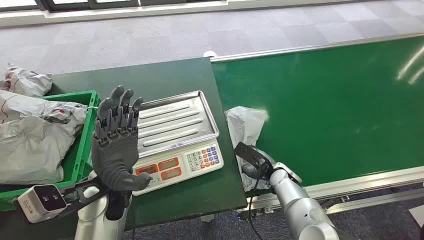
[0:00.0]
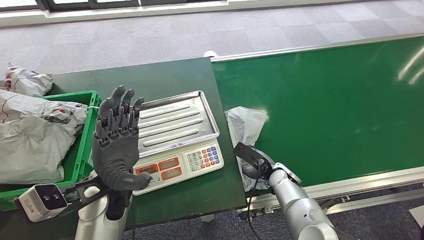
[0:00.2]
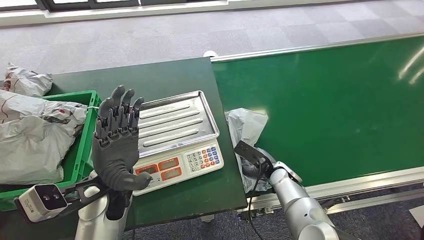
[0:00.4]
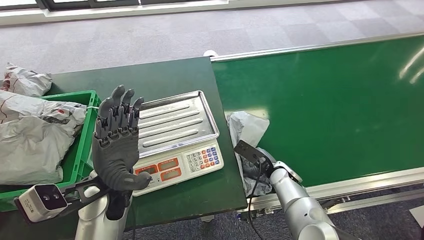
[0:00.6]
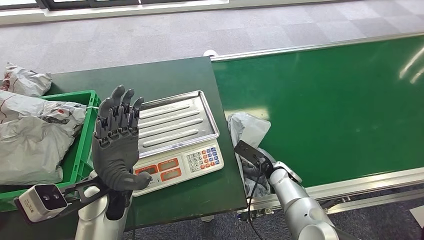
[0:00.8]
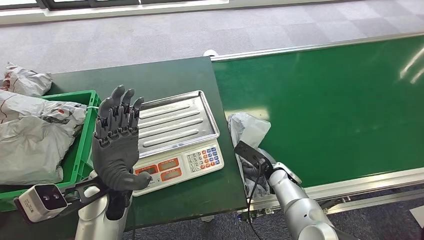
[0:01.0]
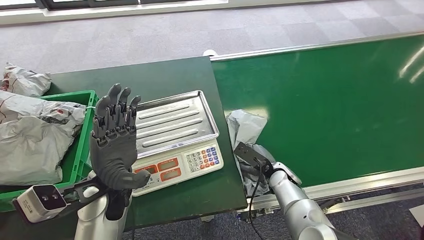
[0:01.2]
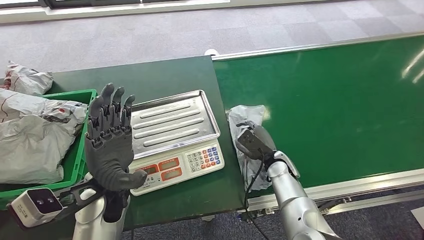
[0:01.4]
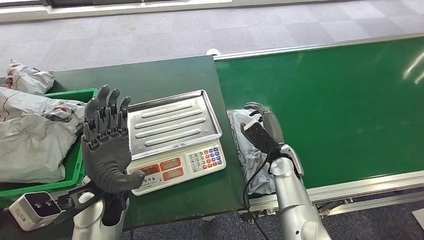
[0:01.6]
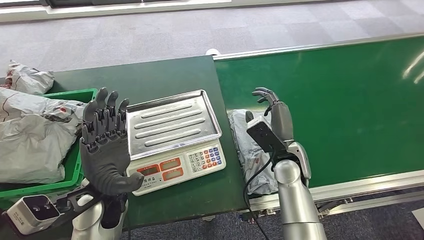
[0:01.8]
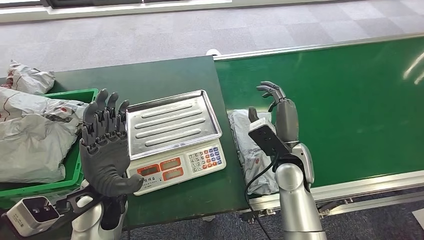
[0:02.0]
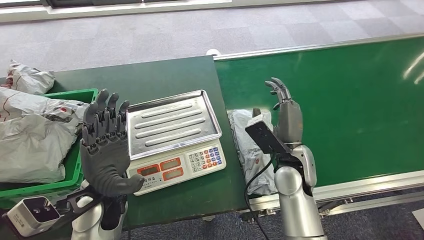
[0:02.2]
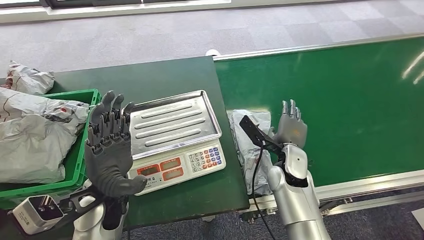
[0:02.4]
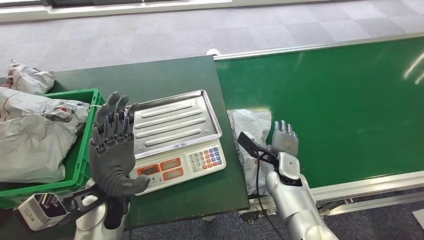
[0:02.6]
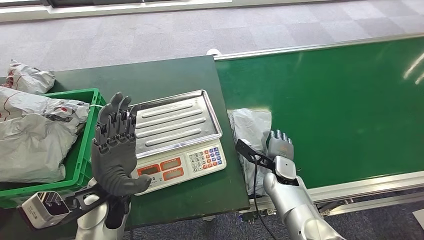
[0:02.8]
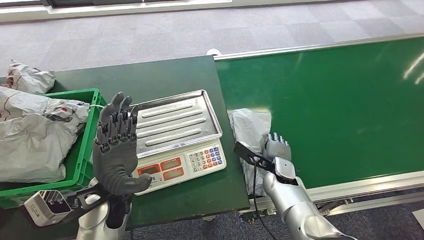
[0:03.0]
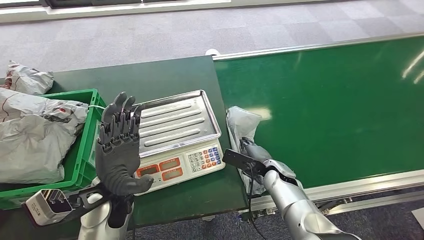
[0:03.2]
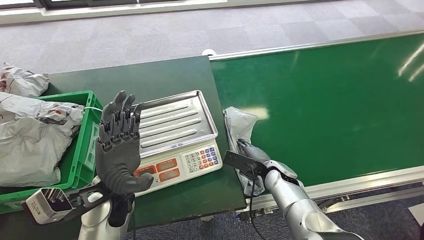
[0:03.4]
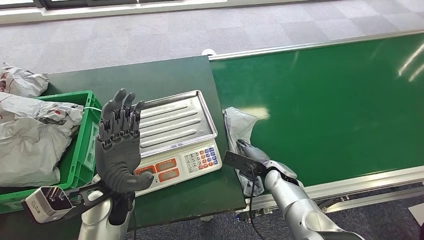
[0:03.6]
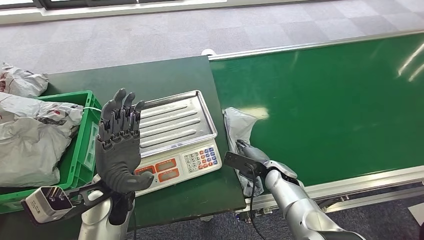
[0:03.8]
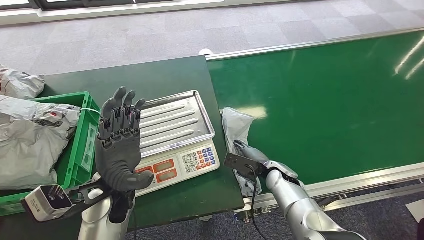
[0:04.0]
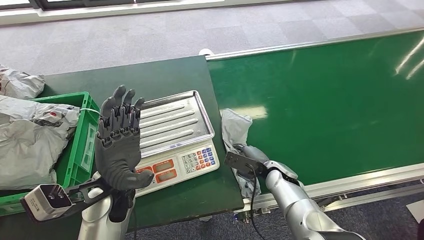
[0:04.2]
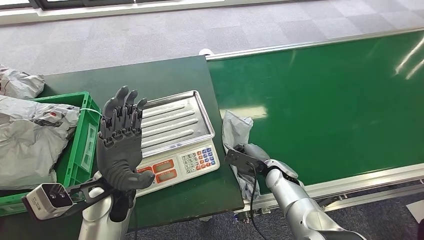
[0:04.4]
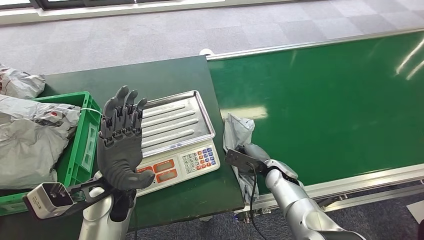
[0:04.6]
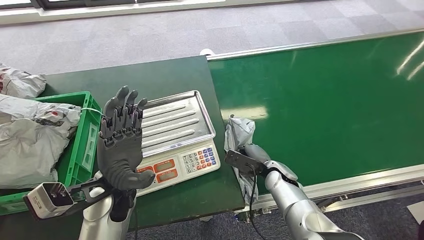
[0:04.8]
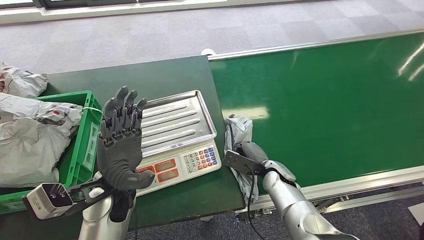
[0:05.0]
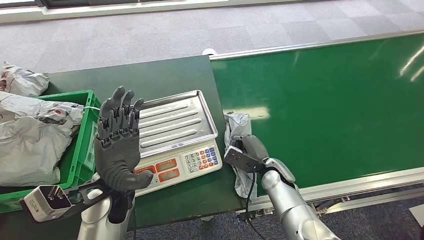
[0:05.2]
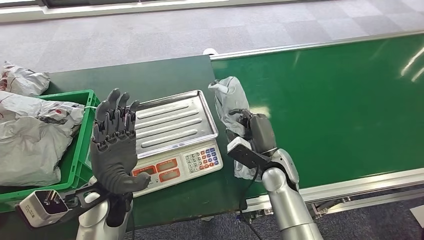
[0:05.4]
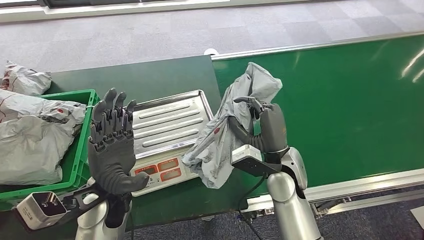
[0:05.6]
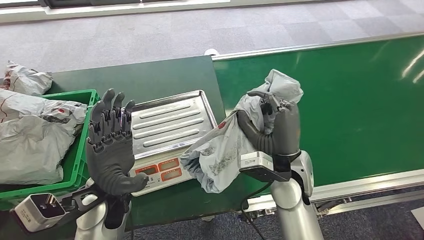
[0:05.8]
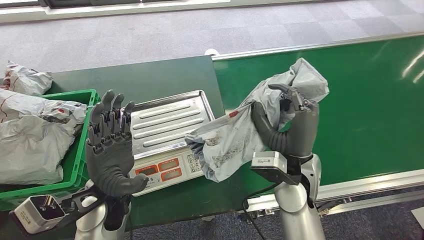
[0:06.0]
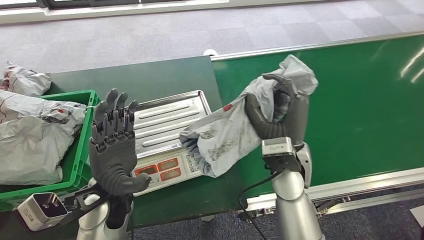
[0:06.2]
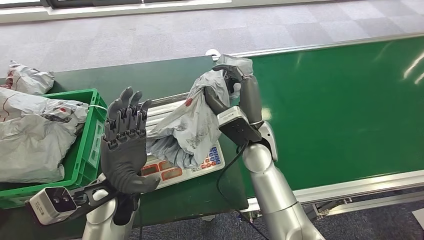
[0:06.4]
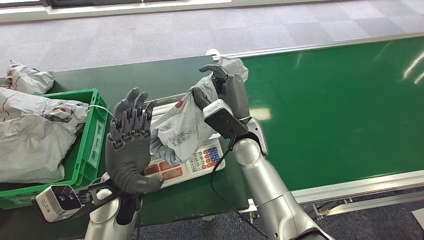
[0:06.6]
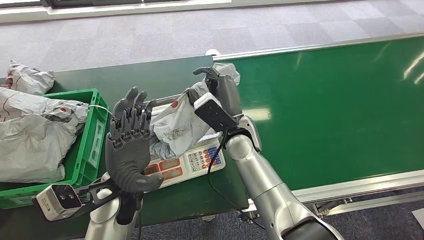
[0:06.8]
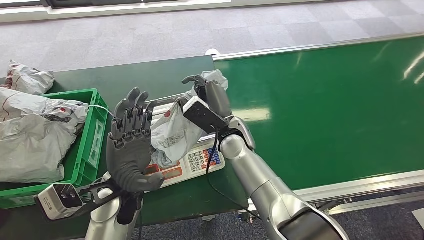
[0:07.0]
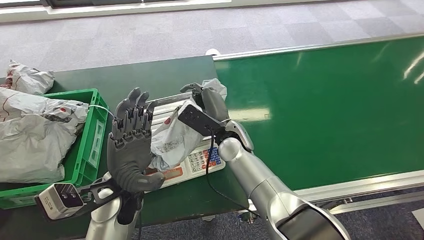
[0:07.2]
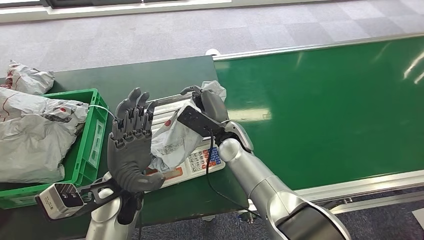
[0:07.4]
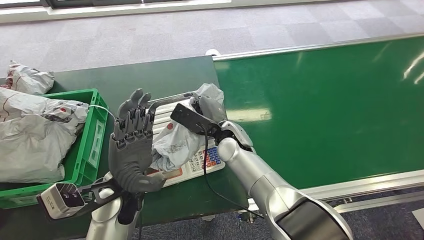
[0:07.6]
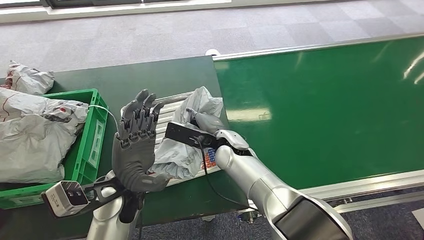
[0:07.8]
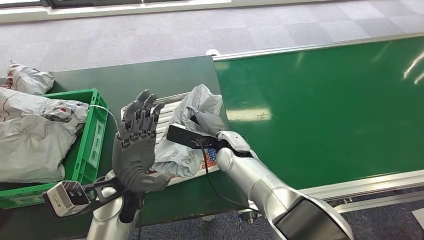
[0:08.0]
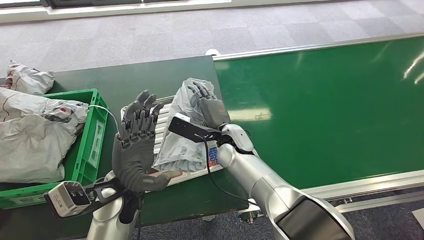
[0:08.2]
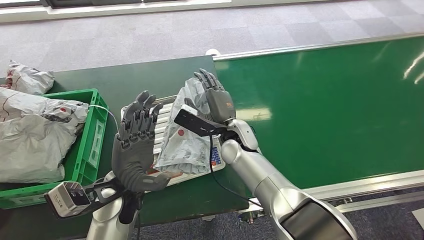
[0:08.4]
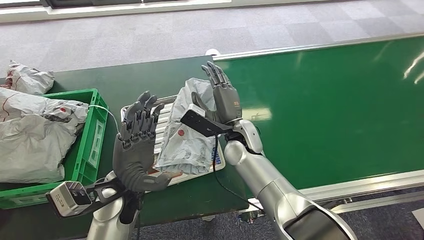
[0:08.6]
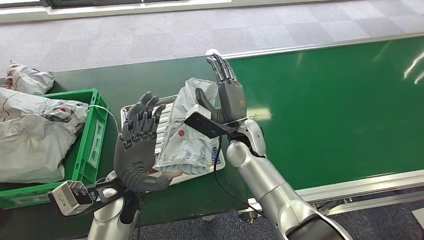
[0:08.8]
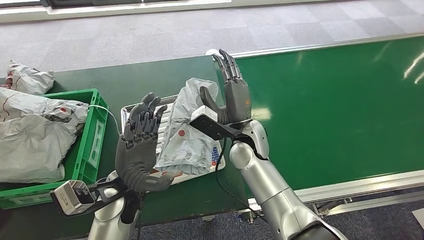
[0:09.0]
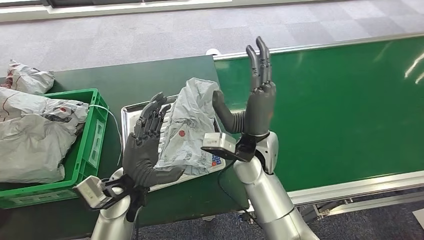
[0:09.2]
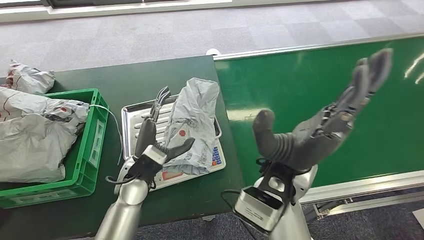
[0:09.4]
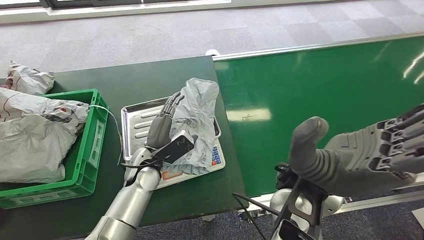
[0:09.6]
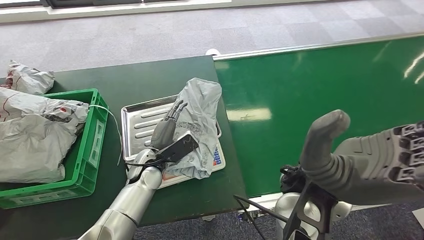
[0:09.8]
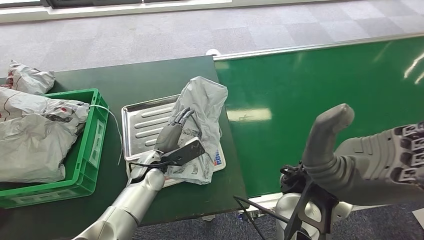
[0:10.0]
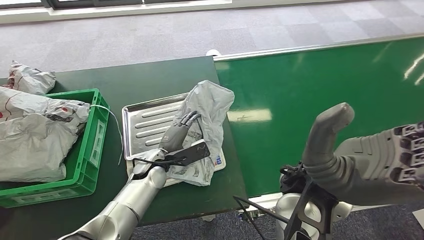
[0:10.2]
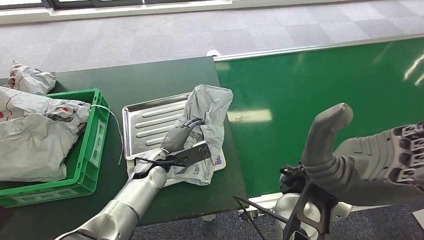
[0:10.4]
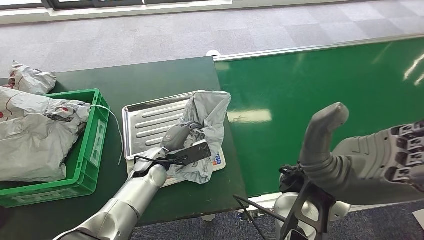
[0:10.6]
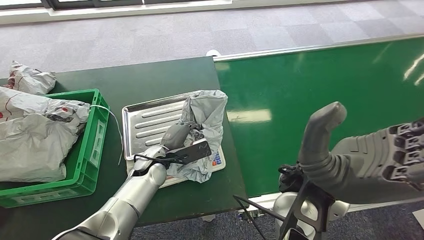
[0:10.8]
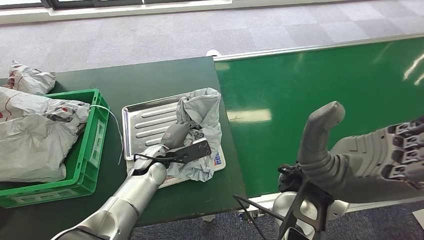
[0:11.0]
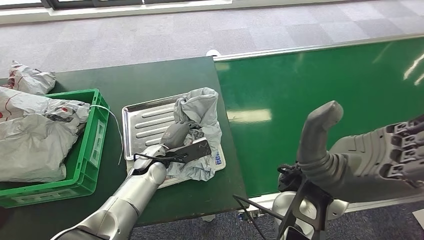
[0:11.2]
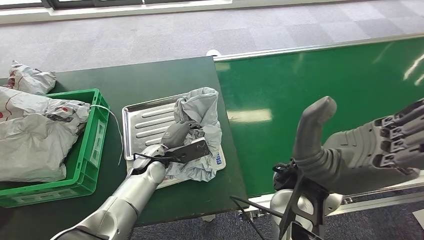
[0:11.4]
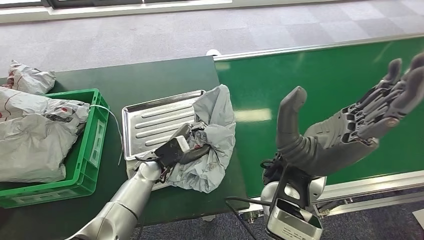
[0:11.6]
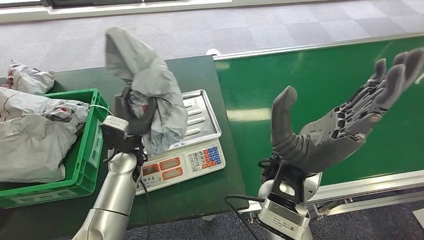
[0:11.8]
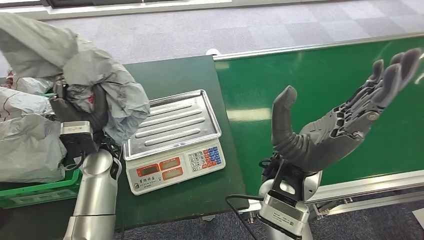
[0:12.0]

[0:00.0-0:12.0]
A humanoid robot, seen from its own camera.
Step, 0:00.0 to 0:05.8: Pick up the package from the conveyor belt.
Step, 0:06.0 to 0:09.6: Place the package onto the inbound machine.

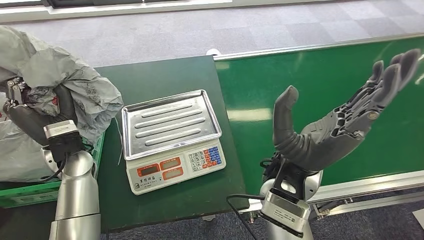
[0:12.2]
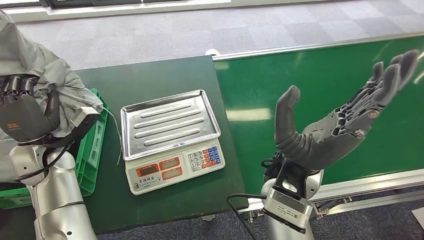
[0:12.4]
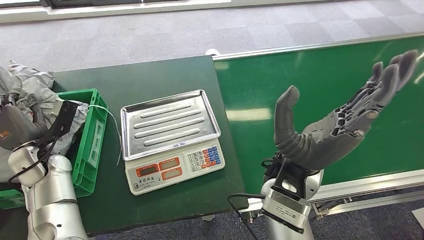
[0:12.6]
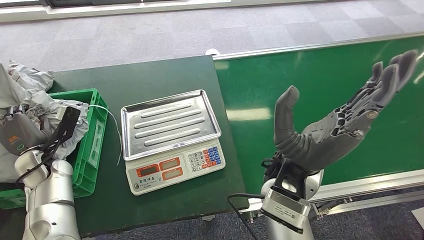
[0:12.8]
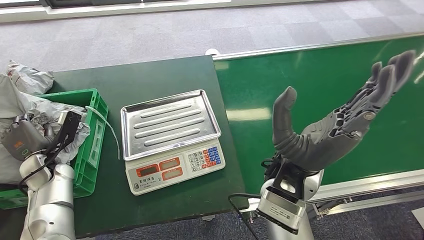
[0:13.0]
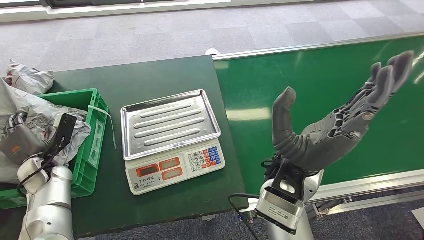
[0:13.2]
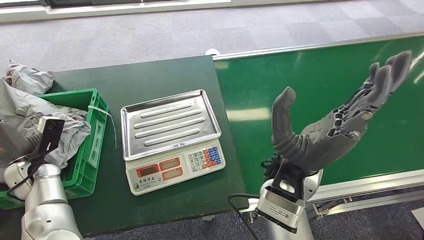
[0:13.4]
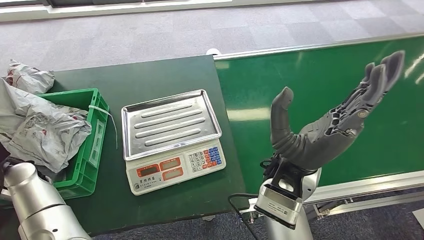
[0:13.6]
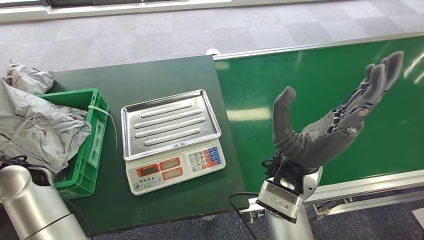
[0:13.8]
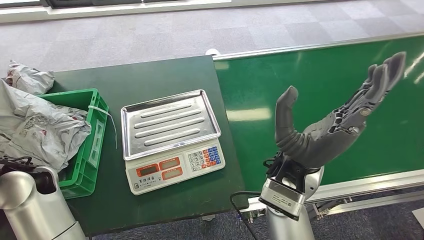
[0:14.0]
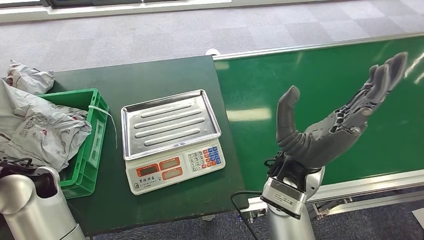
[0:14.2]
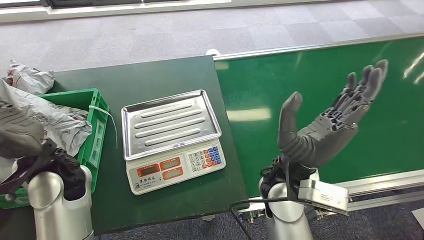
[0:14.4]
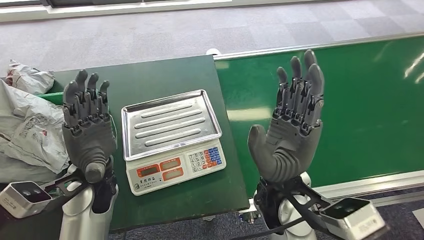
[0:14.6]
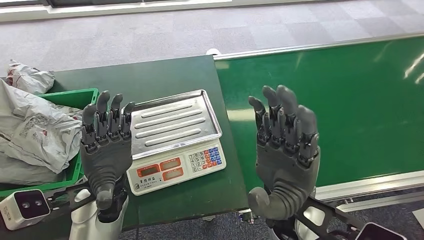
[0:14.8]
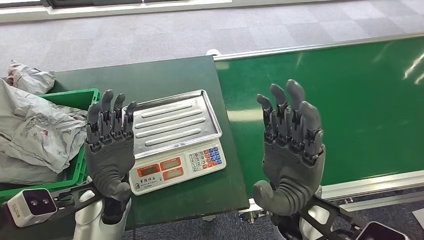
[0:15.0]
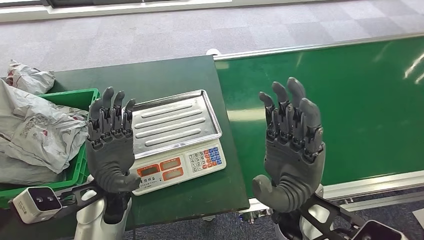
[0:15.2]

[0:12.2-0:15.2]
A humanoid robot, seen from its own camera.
Step, 0:12.6 to 0:15.2: Place the package into the parcel locker.
0:13.8 to 0:15.2: The left hand is displaced to the right by about 20 cm.
